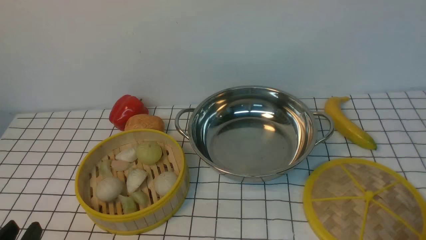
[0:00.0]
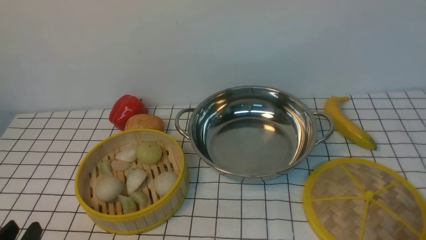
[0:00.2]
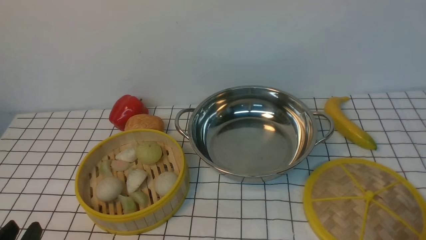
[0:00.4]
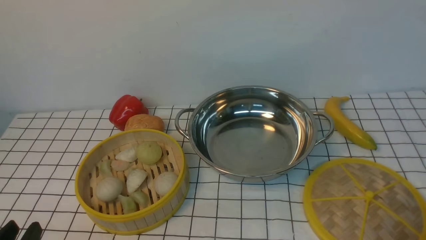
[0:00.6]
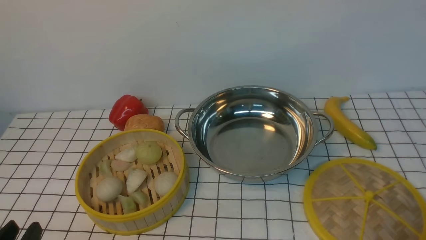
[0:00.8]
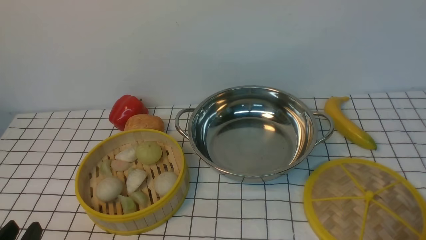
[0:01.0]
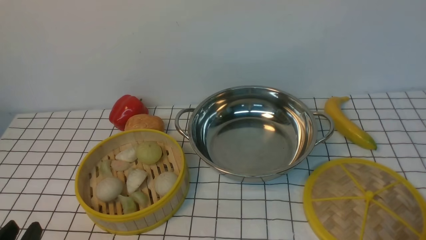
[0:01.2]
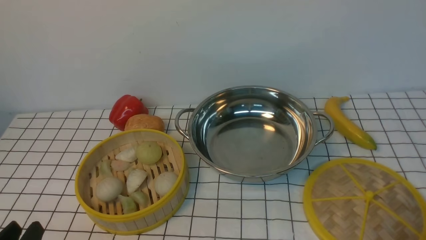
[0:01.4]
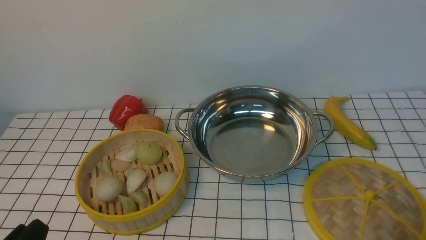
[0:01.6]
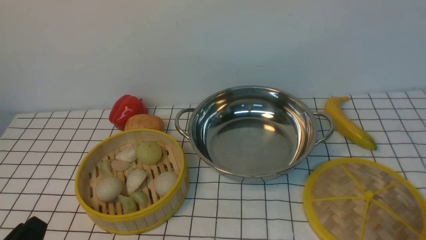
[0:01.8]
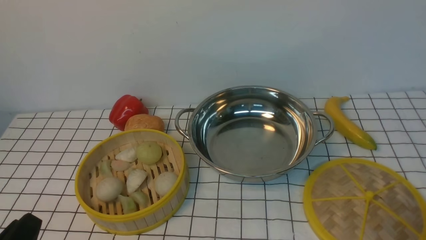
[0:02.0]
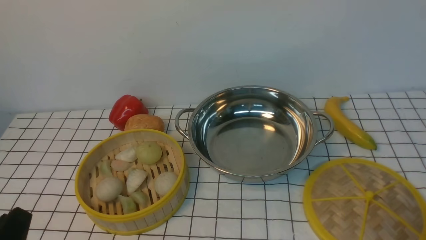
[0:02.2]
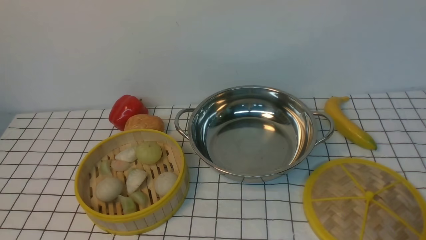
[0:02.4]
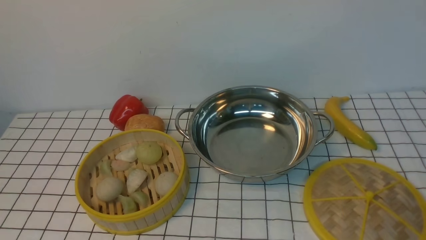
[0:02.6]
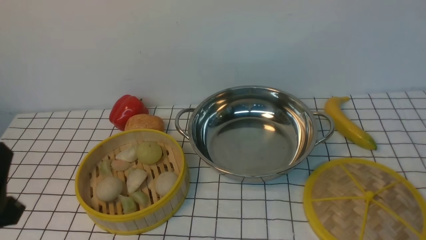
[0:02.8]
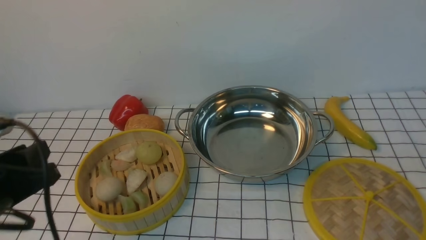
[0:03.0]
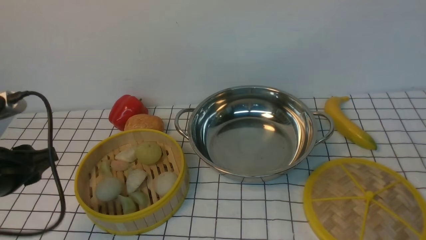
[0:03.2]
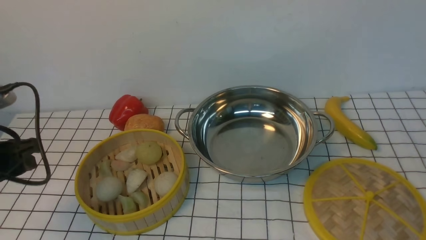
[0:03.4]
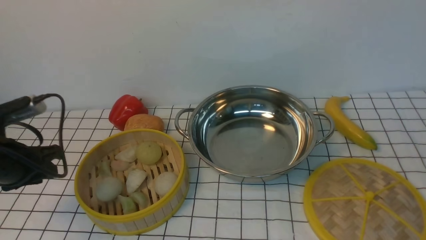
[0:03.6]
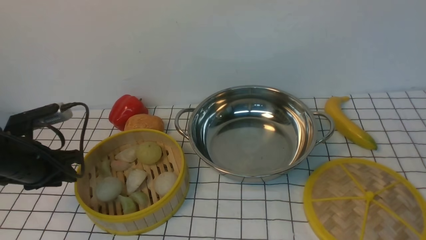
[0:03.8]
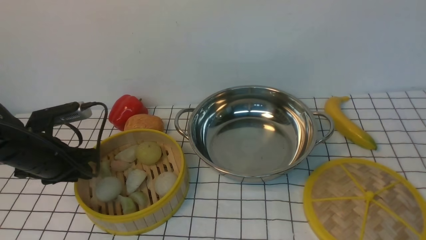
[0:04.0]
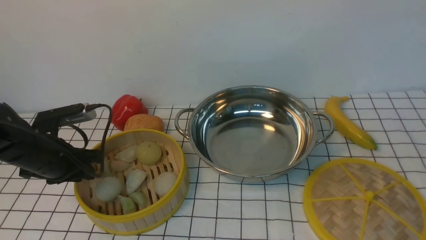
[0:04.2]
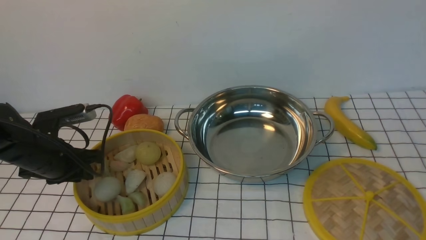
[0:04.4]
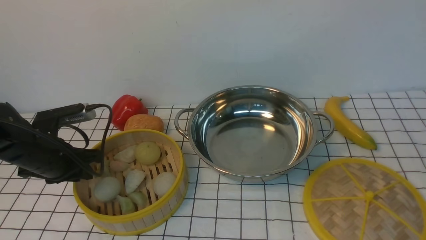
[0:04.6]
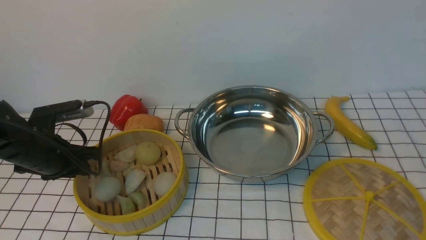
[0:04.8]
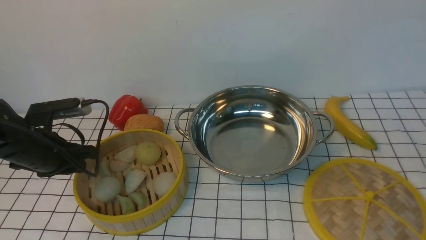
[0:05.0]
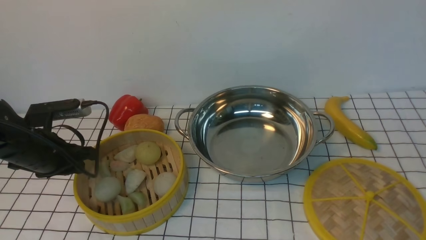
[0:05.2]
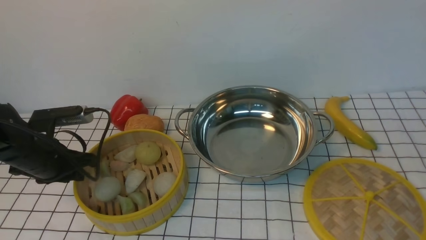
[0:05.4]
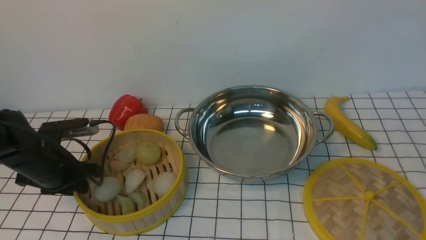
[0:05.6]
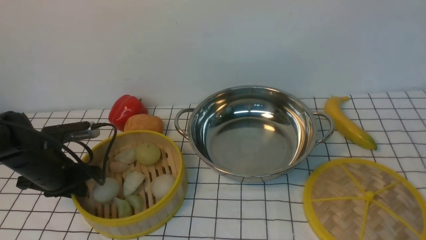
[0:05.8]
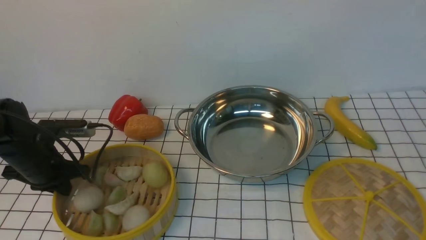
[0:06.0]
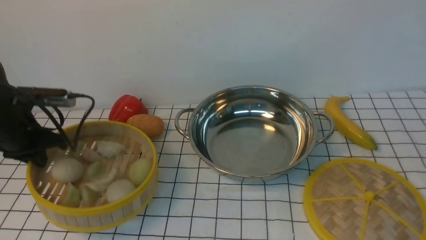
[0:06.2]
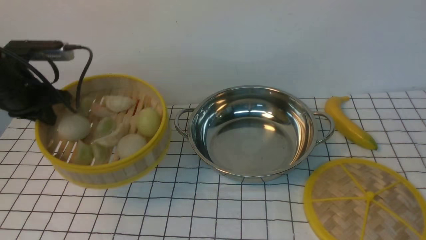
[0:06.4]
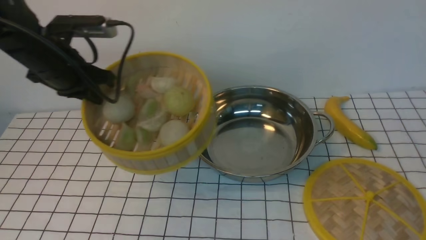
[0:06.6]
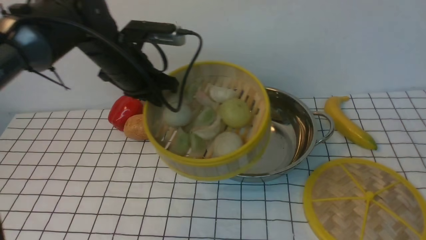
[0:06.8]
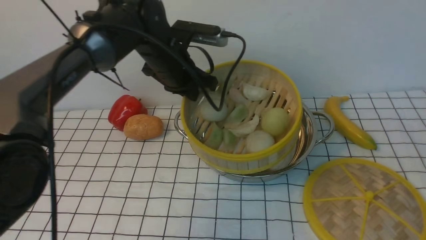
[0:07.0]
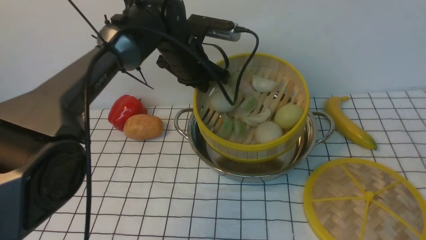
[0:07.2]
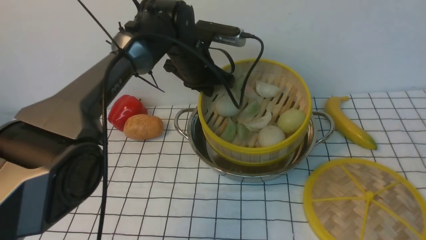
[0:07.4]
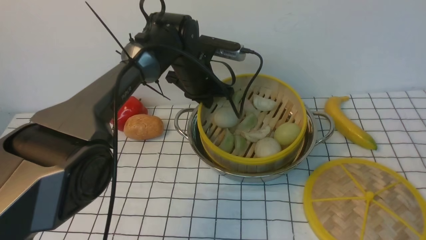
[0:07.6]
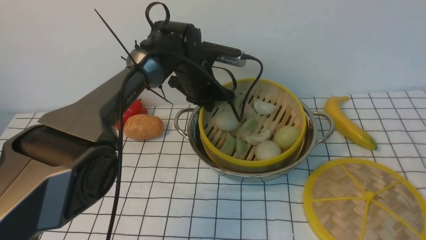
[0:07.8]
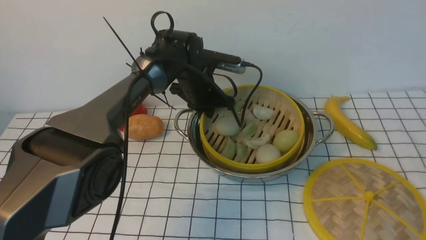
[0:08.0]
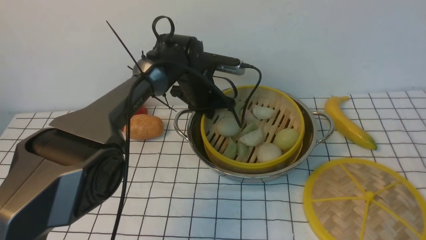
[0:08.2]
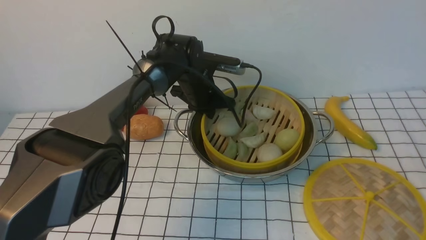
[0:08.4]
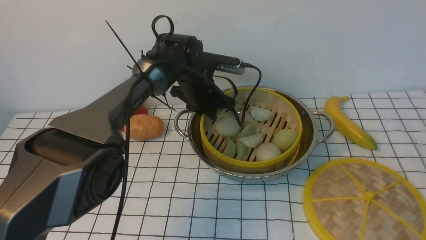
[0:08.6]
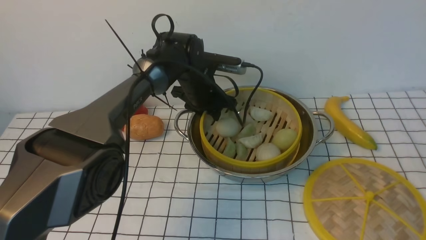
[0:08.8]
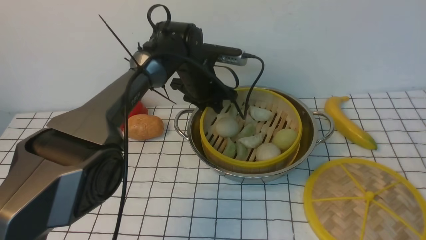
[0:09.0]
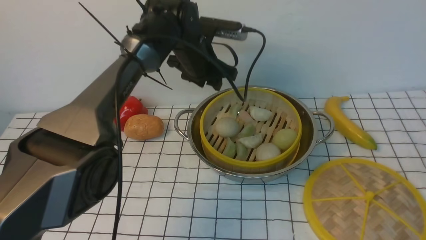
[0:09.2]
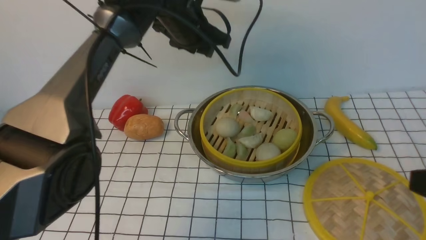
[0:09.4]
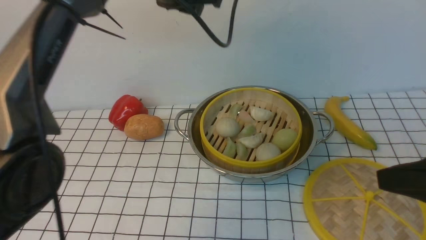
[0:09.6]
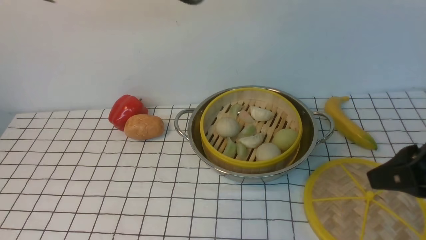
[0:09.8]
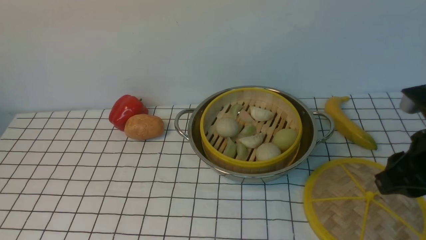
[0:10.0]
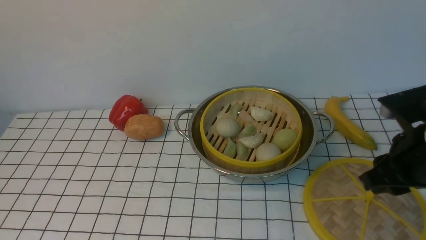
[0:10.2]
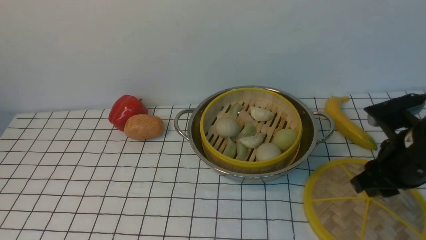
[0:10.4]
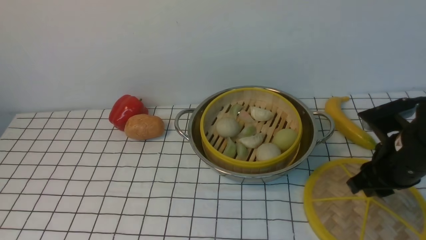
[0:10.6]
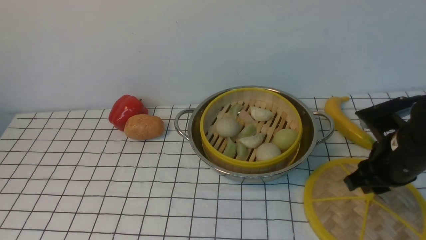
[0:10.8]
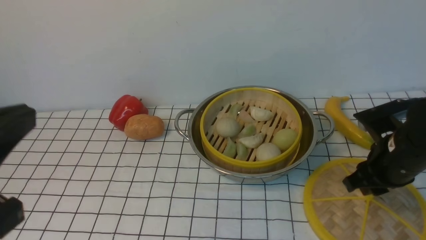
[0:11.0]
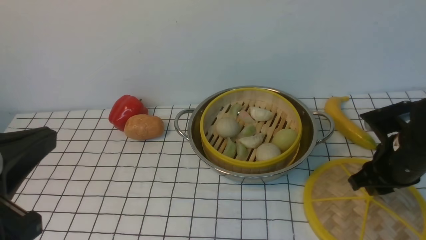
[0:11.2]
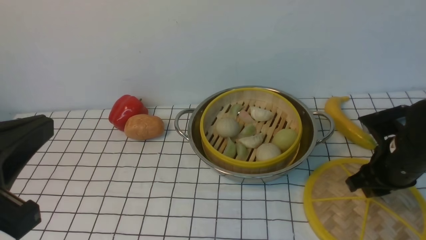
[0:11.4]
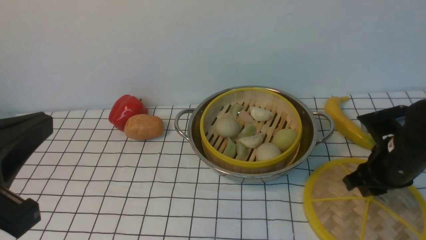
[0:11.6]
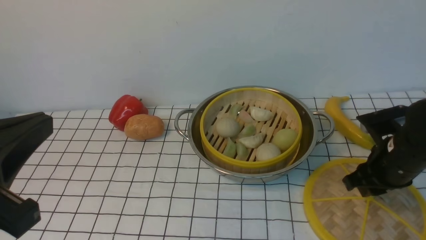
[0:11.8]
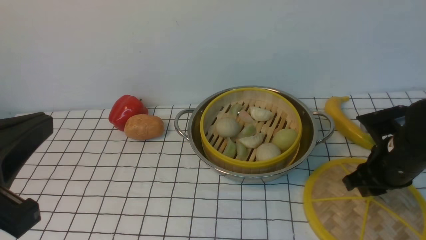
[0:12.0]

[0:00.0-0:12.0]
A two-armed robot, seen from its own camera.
Task of the whole recording: place the steamer in the pot on the white tablecloth, and put the lid on the steamer.
Step, 0:00.0 to 0:06.0: use the left arm to lift the steamer closest to it.
Step, 0:06.2 to 0:09.0: use the left arm to put the steamer into the iron steamer pot in the middle.
0:01.6 to 0:03.0: The left gripper travels forward and upward by approximately 15 cm.
0:03.0 to 0:04.4: The left gripper is displaced forward and downward by approximately 20 cm.
0:04.4 to 0:06.0: The left gripper closes its fingers.
0:06.0 to 0:07.6: The left gripper heads to the right and forward, covering about 30 cm.
0:07.6 to 0:09.0: The left gripper opens.
0:09.0 to 0:10.4: The right gripper is displaced forward and downward by approximately 20 cm. Meanwhile the left gripper goes roughly 50 cm backward, upward and to the left, and closes up.
0:10.4 to 0:12.0: The right gripper travels downward by some 5 cm, while the left gripper travels downward by roughly 20 cm.

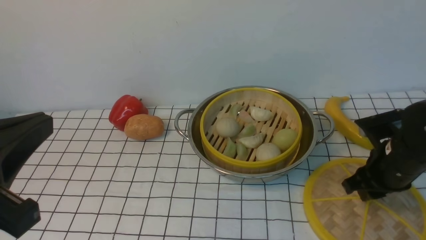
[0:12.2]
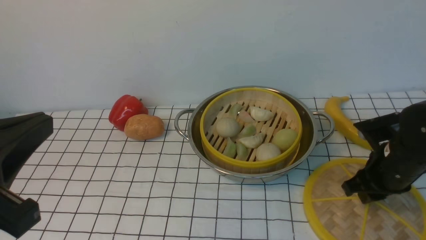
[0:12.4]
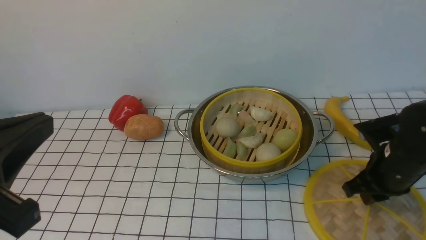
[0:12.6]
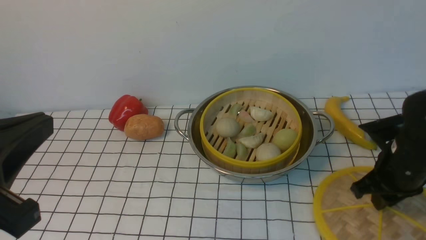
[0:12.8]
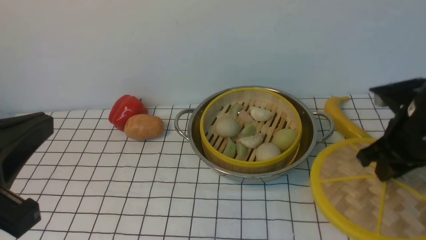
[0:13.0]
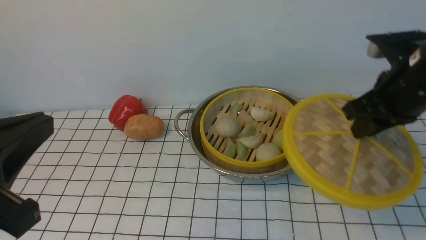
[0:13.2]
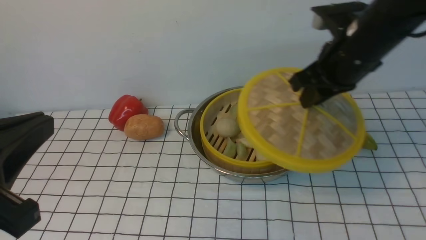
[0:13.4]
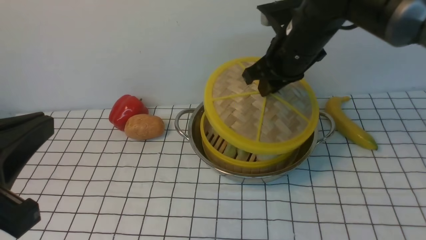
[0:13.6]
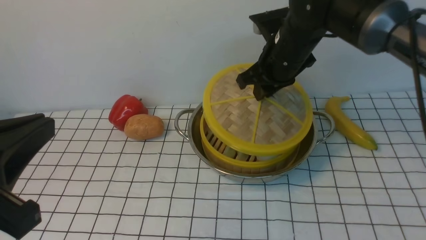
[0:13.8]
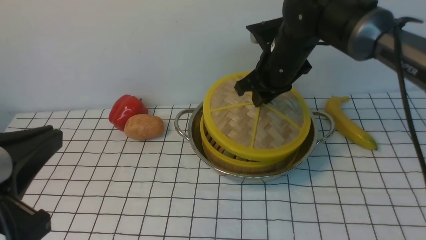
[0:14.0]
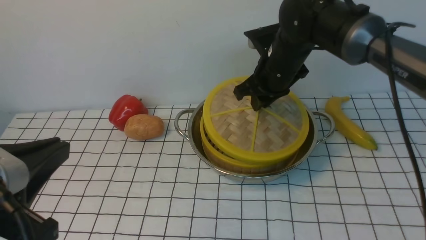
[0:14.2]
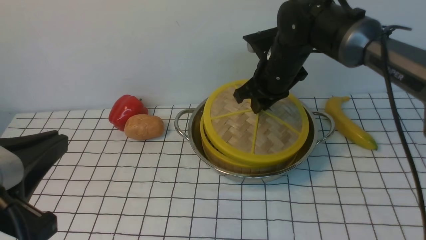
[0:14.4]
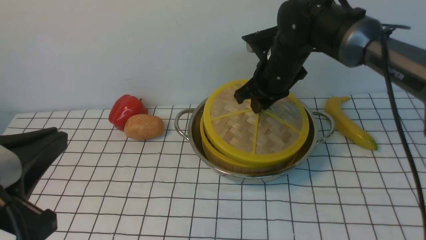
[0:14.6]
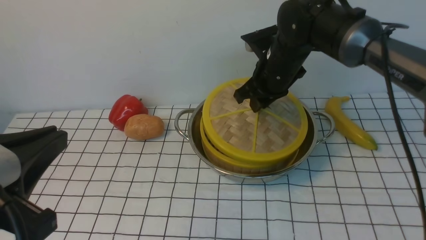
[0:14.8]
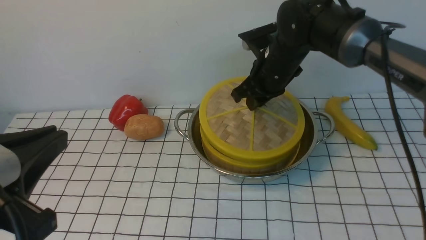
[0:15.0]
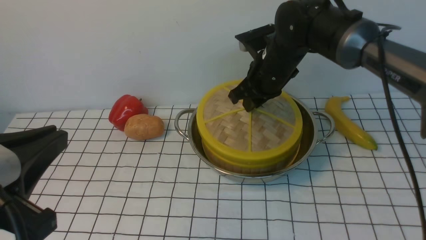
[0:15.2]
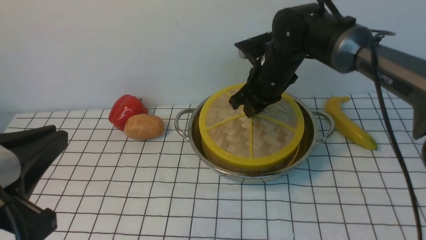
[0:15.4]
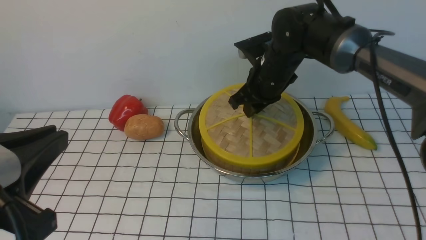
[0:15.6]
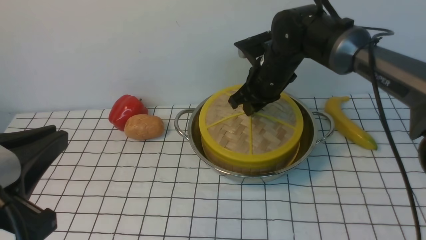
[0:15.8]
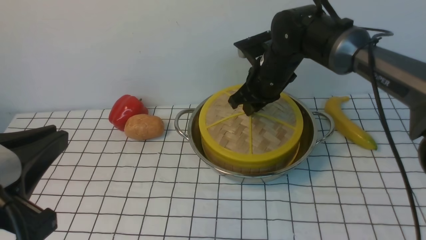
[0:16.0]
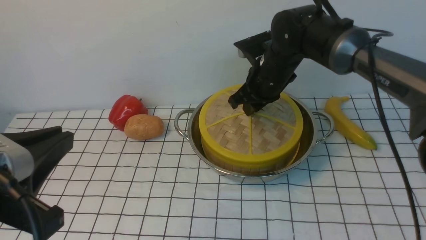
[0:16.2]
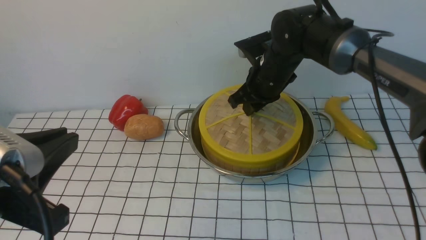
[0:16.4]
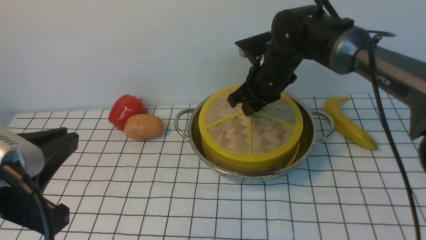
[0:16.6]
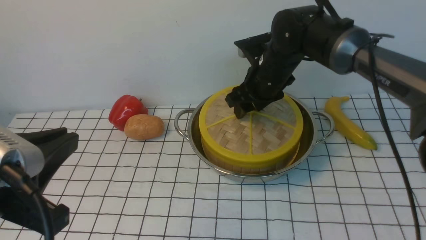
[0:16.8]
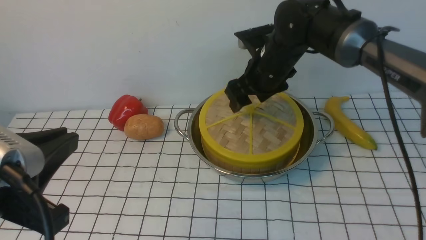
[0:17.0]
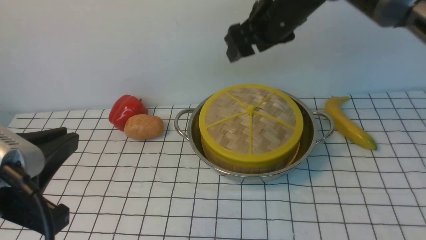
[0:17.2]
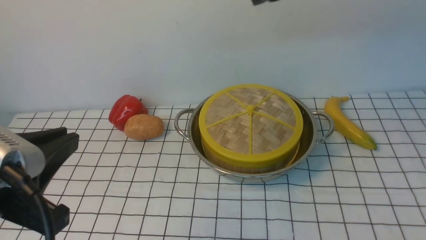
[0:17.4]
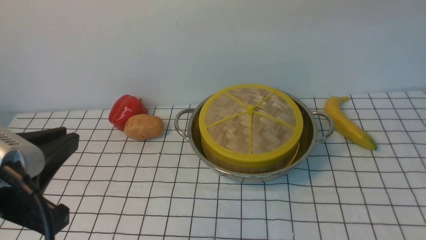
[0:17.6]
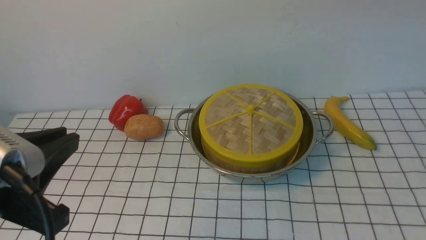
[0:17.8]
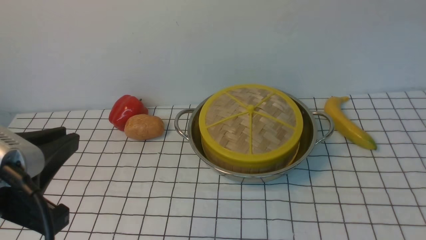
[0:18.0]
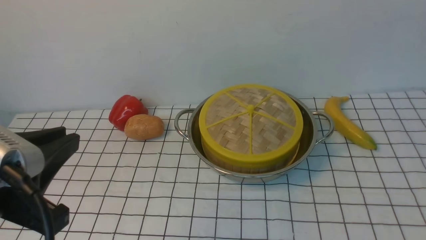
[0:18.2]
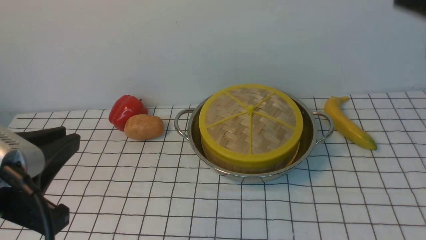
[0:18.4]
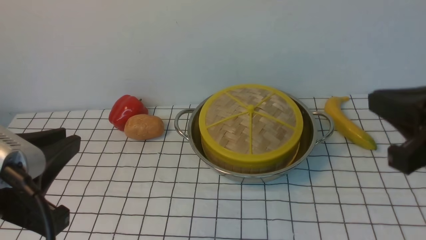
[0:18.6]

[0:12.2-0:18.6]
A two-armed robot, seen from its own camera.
Task of the whole recording: place the steamer in the pot on the white tablecloth, and put the lid on the steamer.
Step, 0:13.0 to 0:17.0: use the right arm to place the steamer lid on the steamer.
0:12.2 to 0:13.8: The right gripper heads to the left, forward and upward, covering roughly 20 cm.
0:13.8 to 0:15.4: The right gripper ends up some 5 cm from where it was.
0:15.4 to 0:17.0: The right gripper shifts about 5 cm upward, and opens.
0:17.0 to 0:18.6: The right gripper moves backward and to the right, some 30 cm, travels upward and back again, about 25 cm each way, and closes its fingers.
